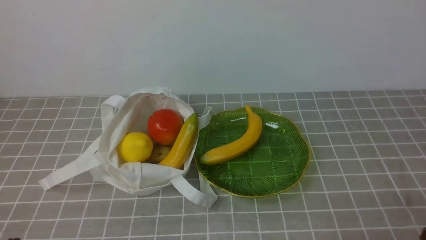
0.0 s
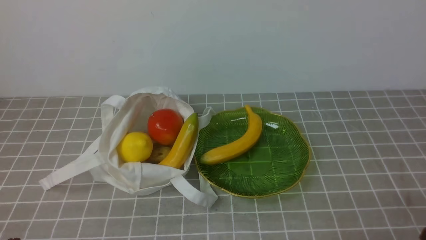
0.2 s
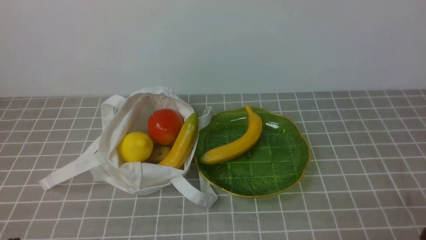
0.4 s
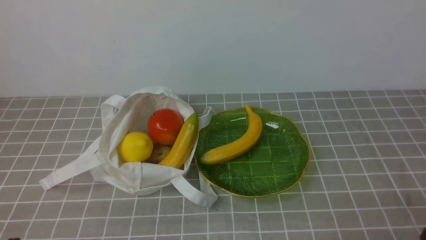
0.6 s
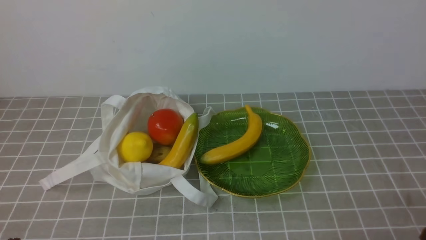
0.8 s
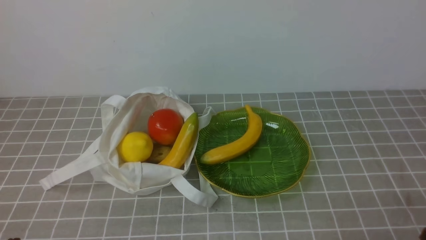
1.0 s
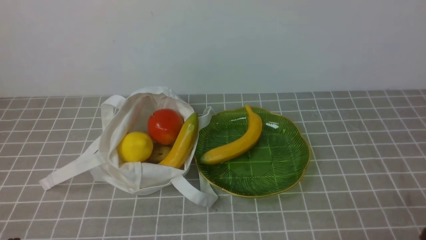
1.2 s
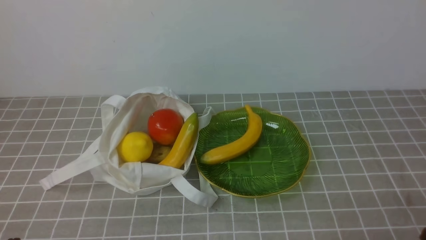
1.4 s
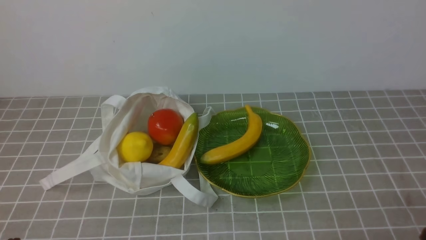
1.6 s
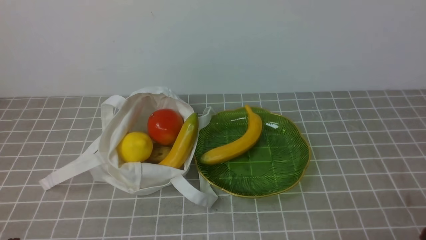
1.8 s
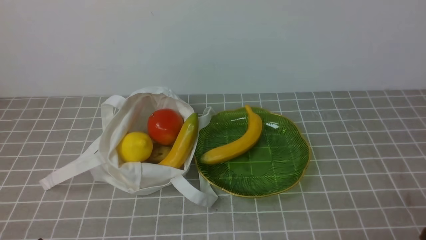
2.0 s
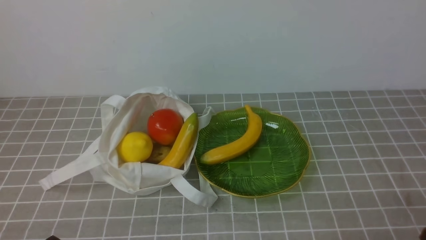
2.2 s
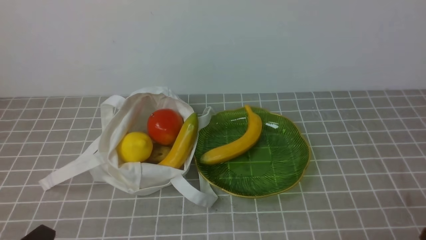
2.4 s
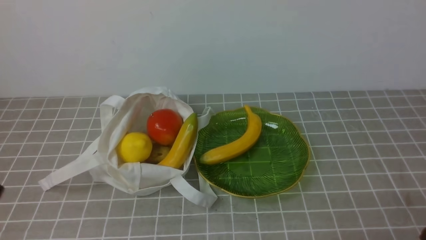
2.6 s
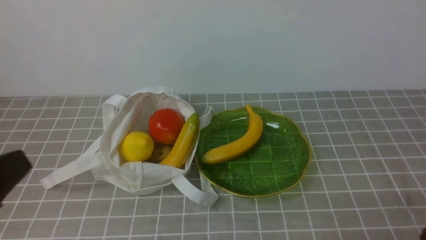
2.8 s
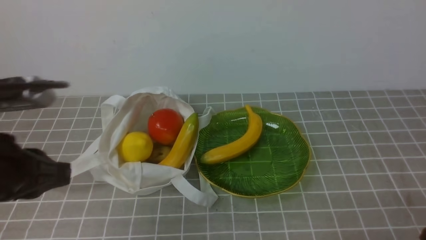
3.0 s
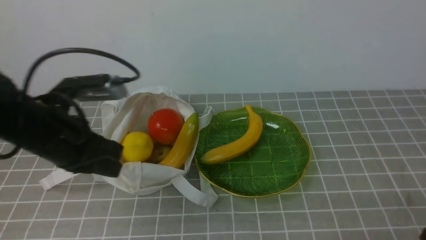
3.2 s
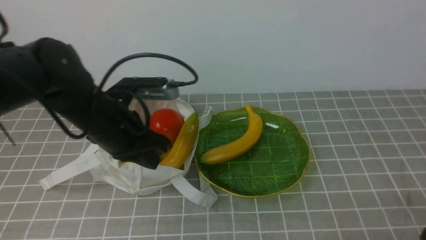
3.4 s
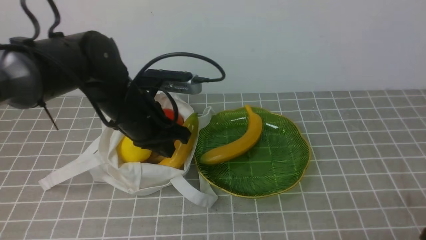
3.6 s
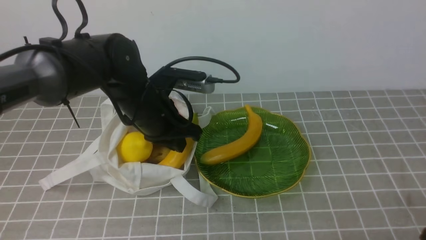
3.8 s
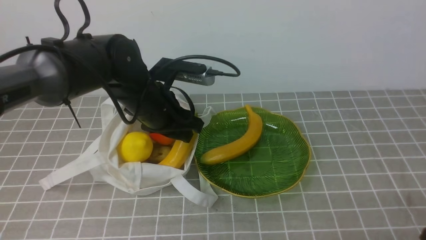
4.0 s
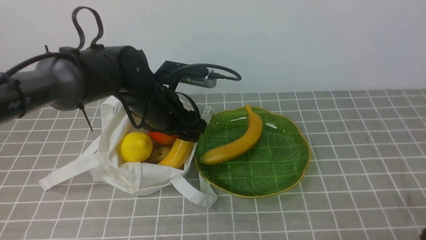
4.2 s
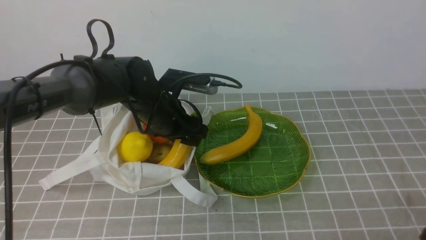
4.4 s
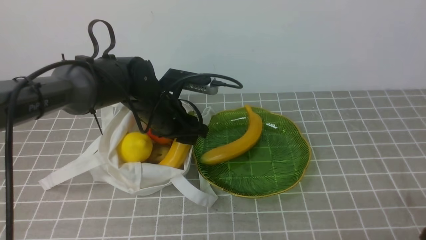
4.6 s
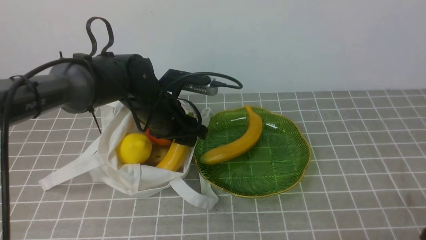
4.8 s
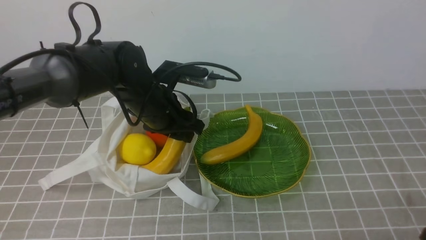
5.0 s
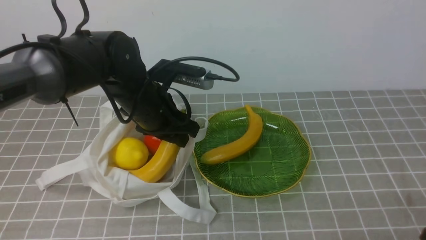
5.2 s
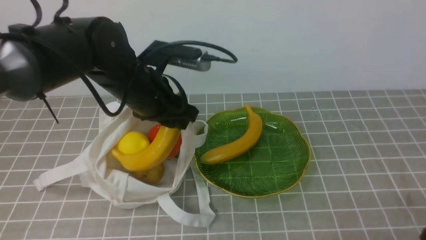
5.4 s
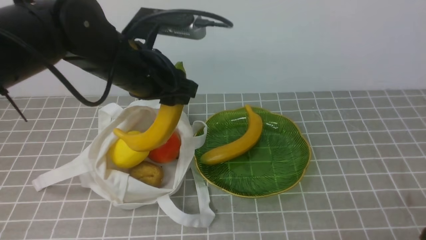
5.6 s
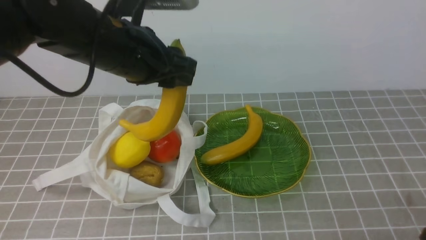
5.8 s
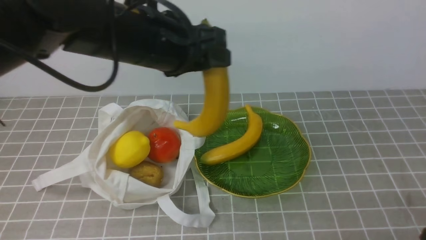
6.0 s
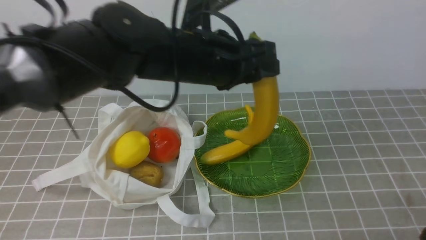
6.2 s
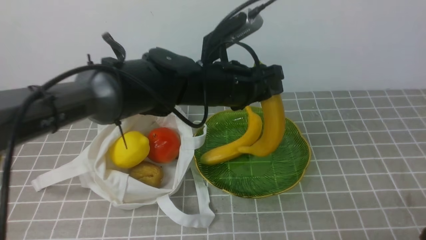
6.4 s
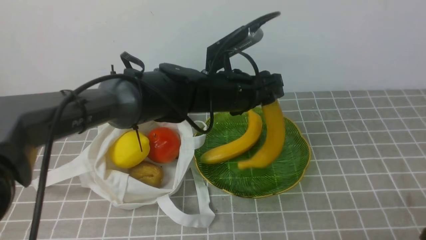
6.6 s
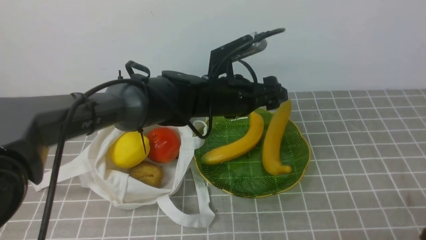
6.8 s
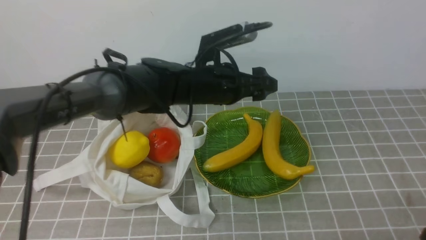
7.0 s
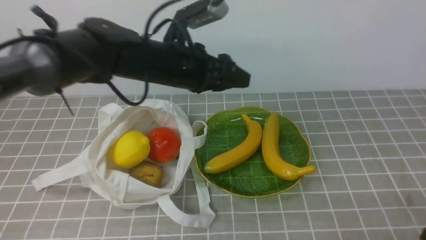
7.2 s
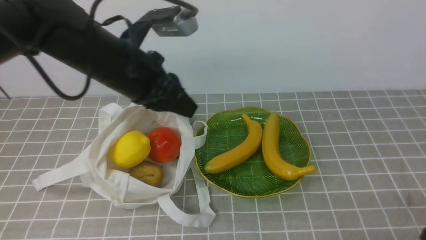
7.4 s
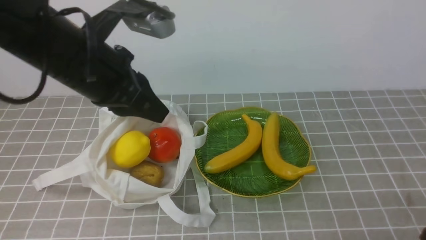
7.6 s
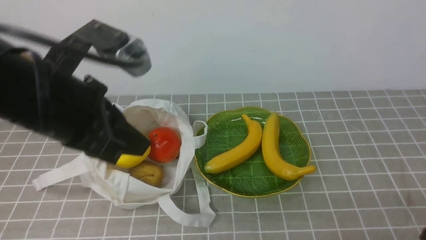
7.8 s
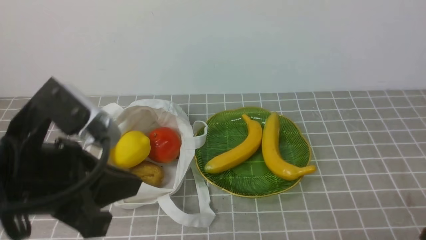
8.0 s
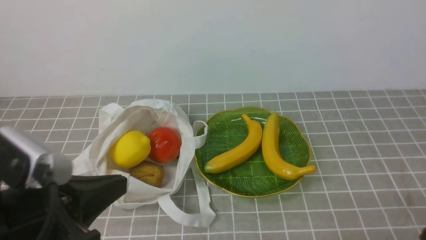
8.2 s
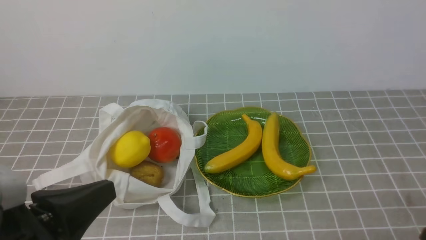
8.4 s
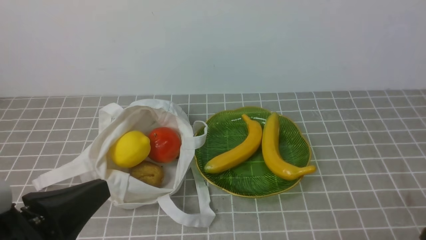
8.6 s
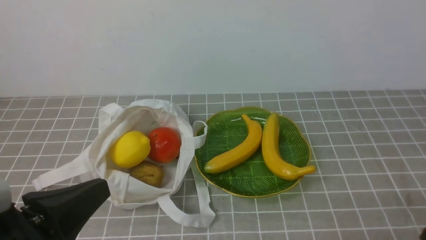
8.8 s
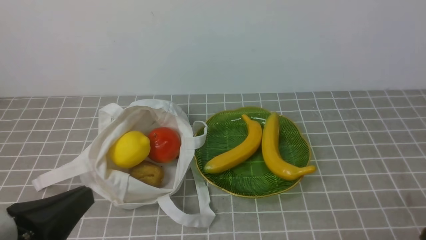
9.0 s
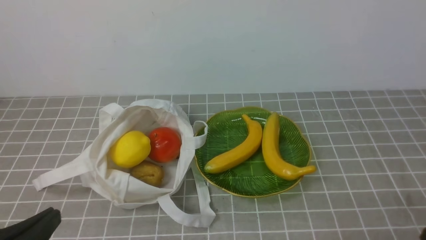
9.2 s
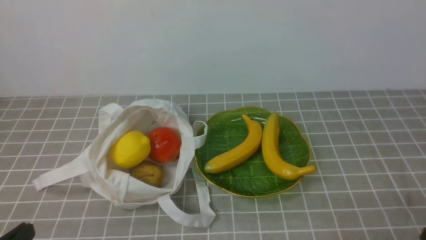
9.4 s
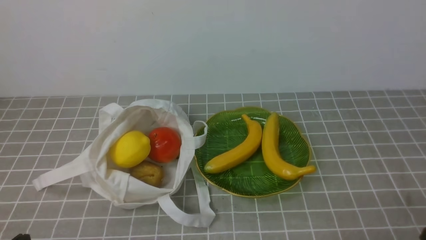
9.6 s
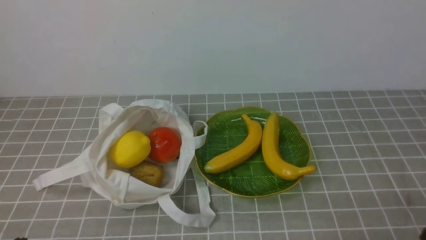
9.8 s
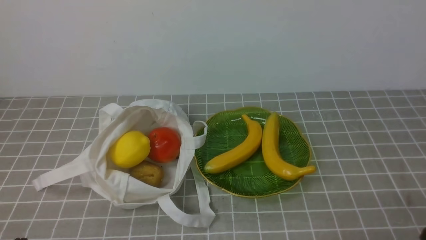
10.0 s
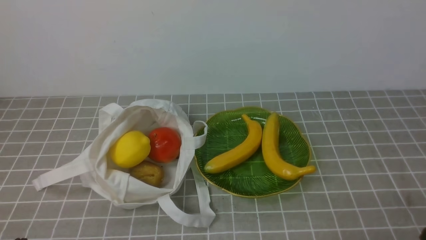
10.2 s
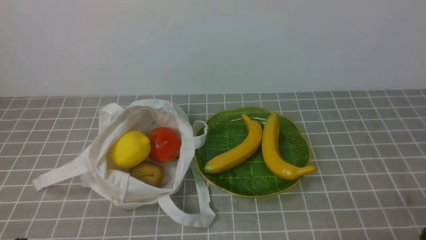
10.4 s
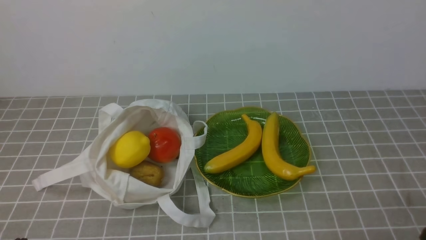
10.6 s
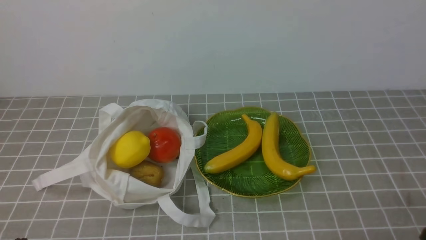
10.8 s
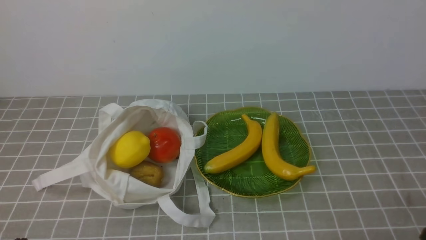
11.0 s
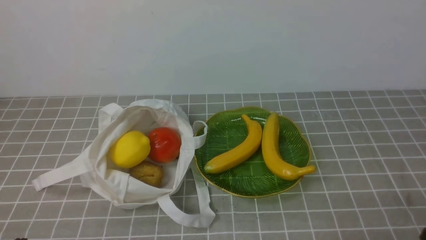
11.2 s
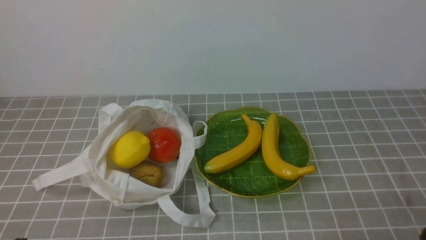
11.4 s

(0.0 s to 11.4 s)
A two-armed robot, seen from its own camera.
Step, 0.0 s - 5.4 s: use the left arm to grab a banana from the bag.
Step, 5.6 s - 6.8 s: use the left arm to put the banana into the empty plate on the right.
0.0 s - 1.4 s: The two grippers keep their place.
1.4 s - 2.8 s: The left gripper heads upward, covering about 15 cm.
2.8 s - 4.2 s: The left gripper is displaced forward and to the right by some 30 cm, and opens up.
4.2 s - 5.6 s: The left gripper travels upward by roughly 10 cm.
5.6 s - 7.2 s: The left gripper reaches roughly 10 cm to the right, then returns, and opens and closes again.
7.2 s - 8.6 s: The left gripper shifts some 30 cm backward and to the left, and closes up.
8.6 s - 10.0 s: The left gripper moves downward and to the left, about 10 cm.
10.0 s - 11.4 s: Both grippers stay put.
